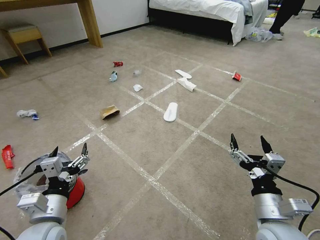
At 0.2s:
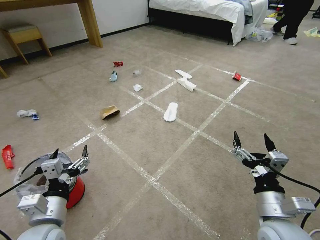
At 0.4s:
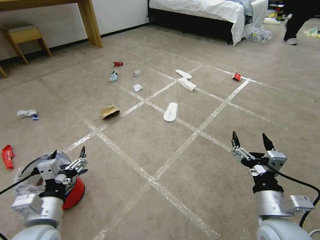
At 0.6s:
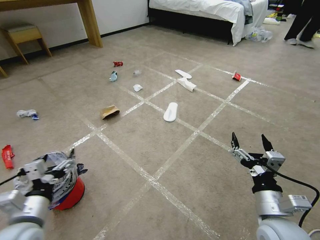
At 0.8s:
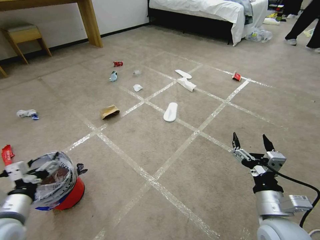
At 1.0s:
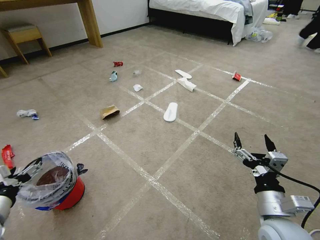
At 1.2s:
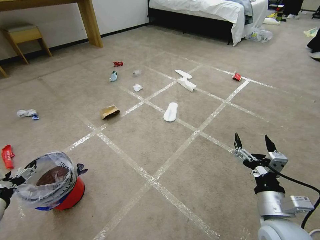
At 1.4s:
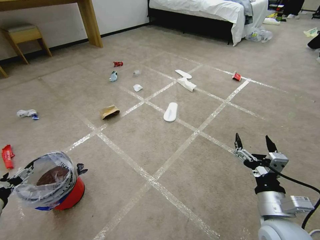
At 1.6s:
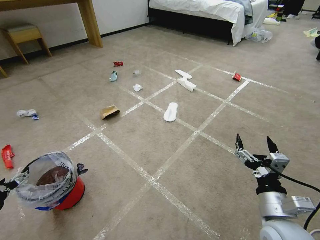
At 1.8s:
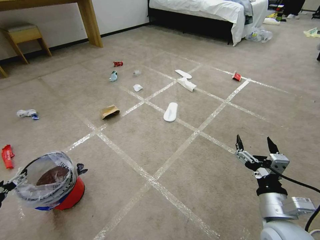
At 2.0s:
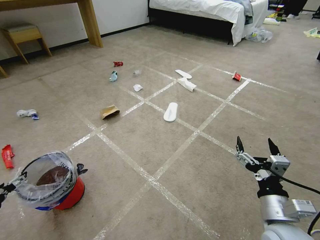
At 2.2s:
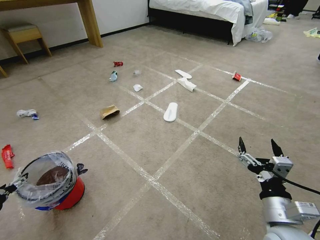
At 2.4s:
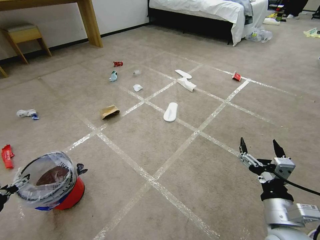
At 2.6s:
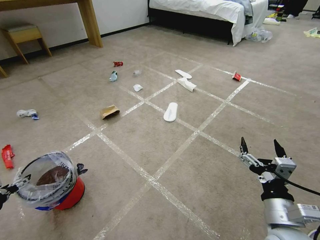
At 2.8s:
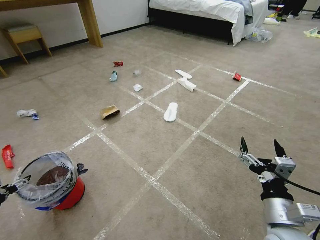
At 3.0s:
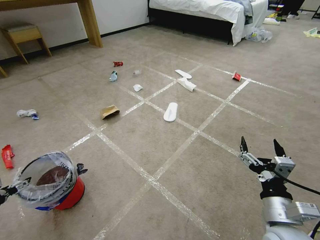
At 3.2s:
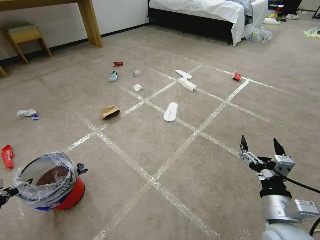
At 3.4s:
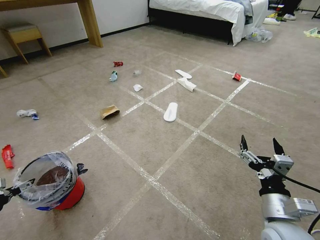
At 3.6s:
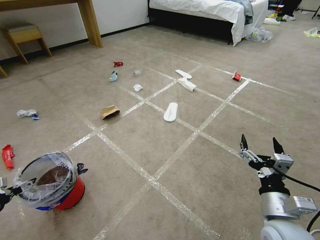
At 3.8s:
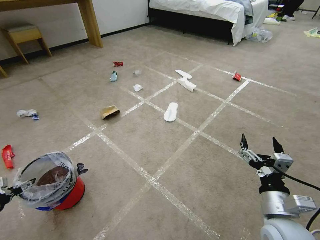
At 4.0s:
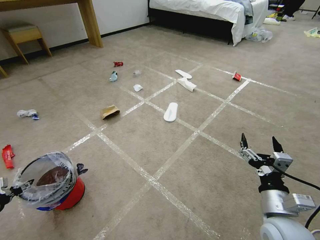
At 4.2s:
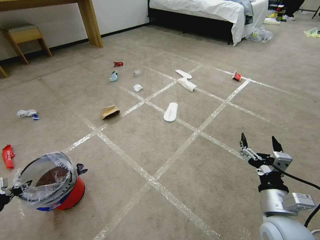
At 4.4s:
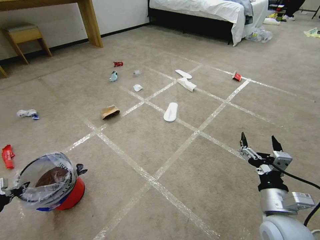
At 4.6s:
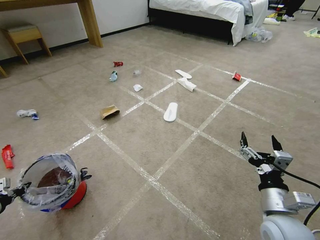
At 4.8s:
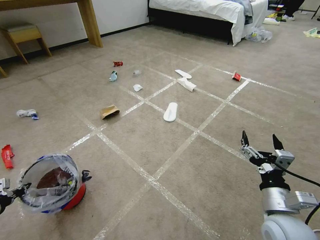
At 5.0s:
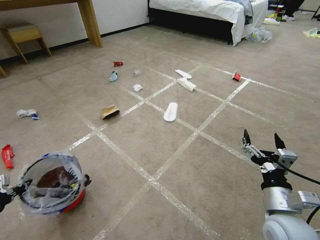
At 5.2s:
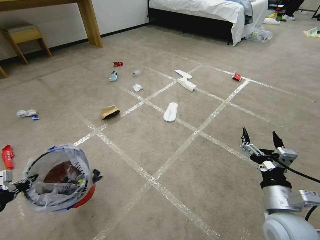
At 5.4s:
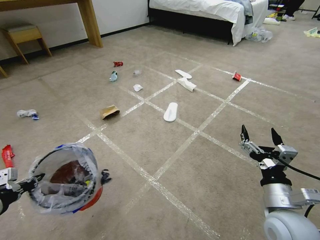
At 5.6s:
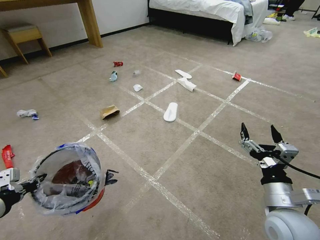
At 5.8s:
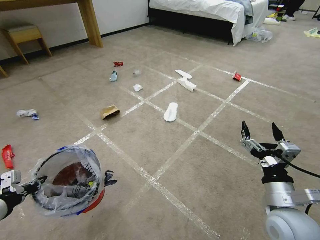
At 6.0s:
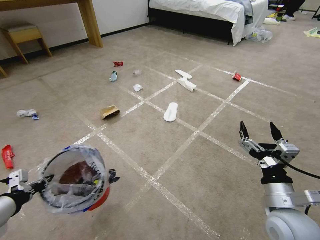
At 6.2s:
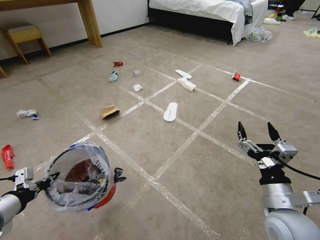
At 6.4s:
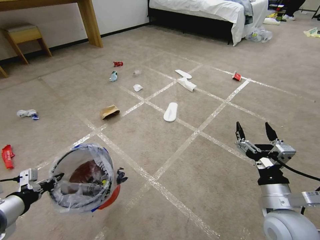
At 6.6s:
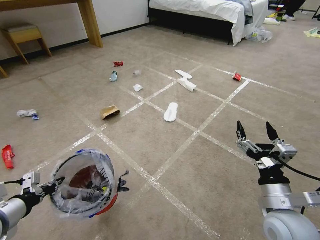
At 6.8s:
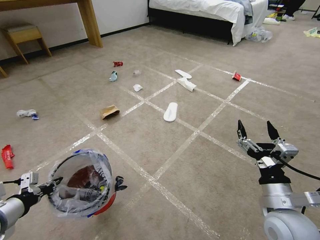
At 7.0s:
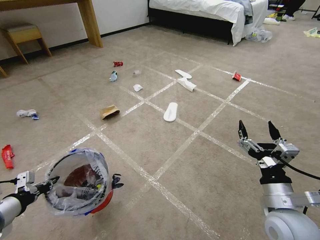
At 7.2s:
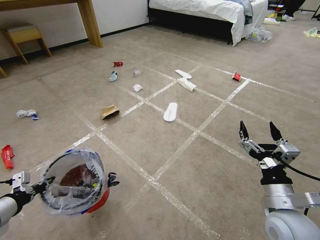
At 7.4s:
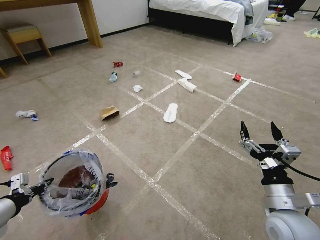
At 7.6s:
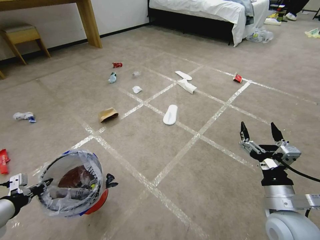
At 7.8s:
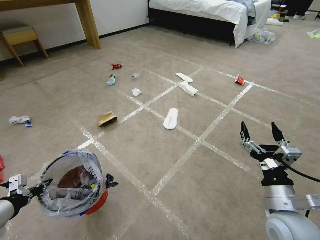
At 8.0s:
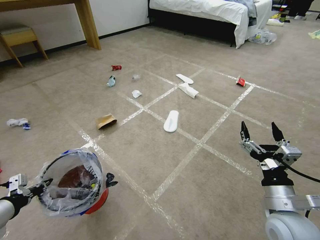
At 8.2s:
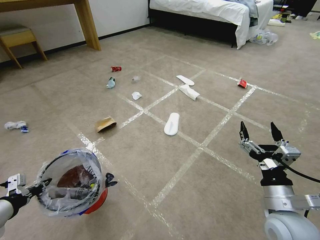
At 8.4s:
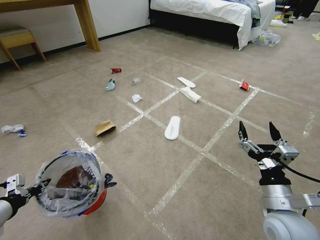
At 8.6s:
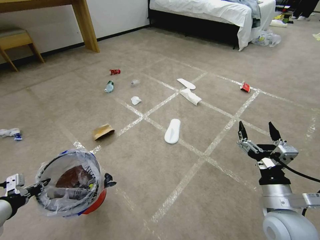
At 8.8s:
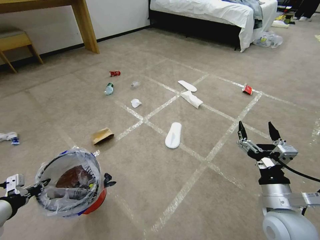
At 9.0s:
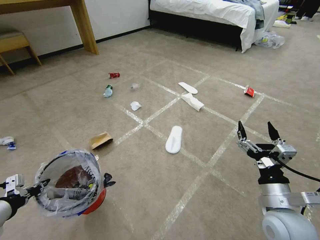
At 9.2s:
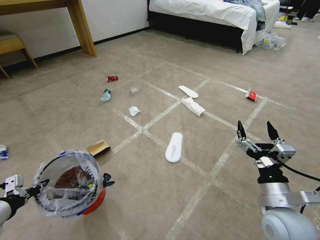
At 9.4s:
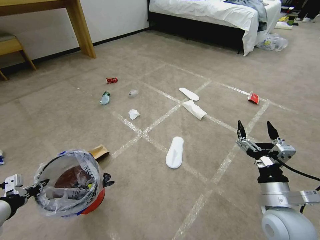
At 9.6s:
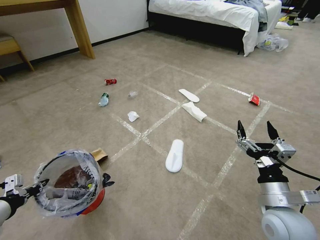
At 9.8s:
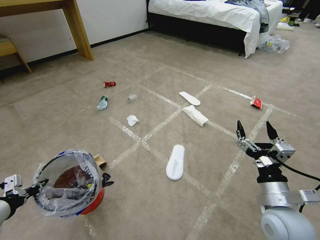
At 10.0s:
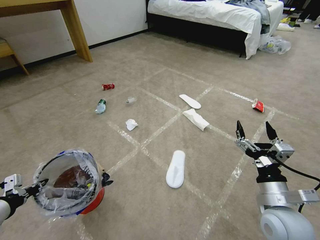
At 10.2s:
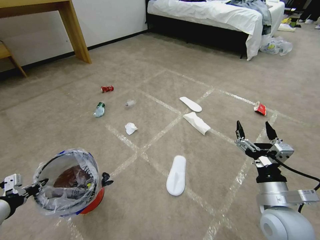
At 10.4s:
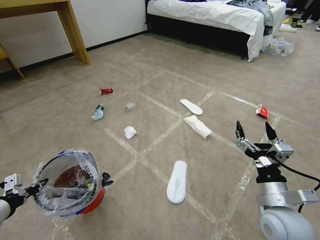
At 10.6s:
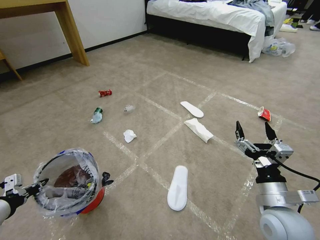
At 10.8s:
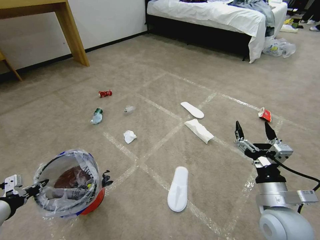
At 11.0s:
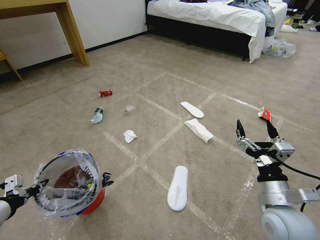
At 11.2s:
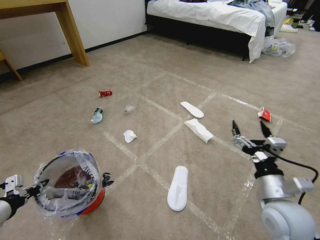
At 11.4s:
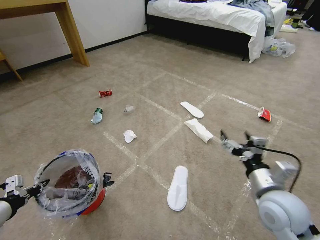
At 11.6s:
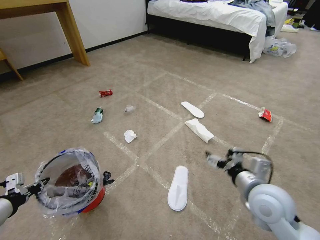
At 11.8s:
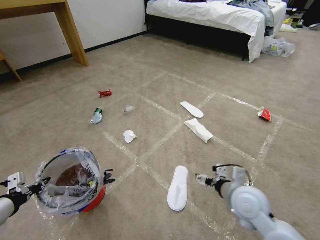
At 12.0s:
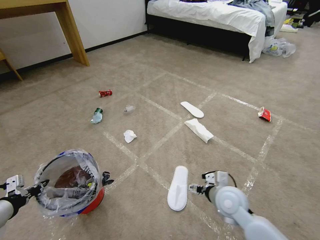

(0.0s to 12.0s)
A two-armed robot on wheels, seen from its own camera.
Task of the whole recording: Pick up the trash bin and place the garbage on the floor into it.
3.0s - 4.4s: The left gripper closes.
4.4s - 6.0s: The left gripper travels to the right and upward by about 20 cm.
6.0s - 7.6s: The grippers stay close to where they were, moving slightly.
10.4s - 12.0s: The right gripper heads forward, to the left and downward, covering approximately 15 cm.

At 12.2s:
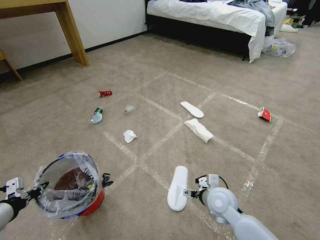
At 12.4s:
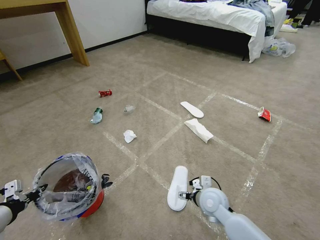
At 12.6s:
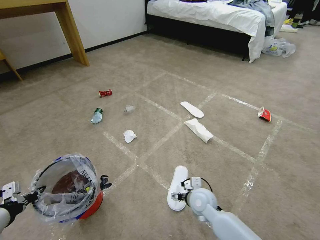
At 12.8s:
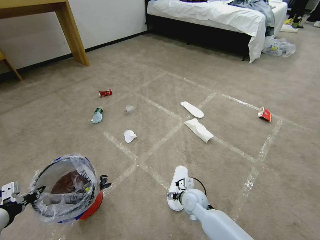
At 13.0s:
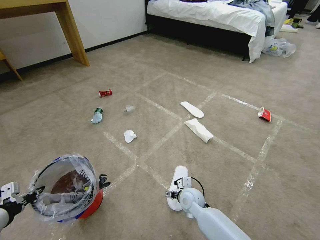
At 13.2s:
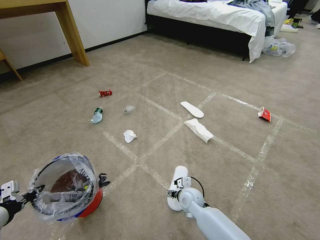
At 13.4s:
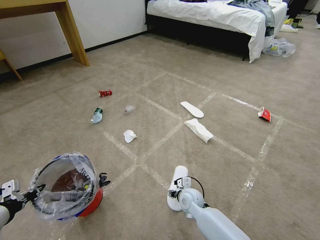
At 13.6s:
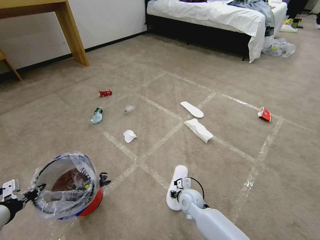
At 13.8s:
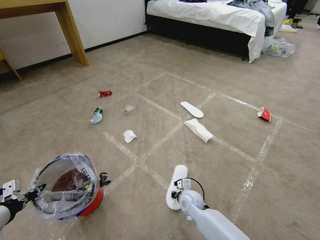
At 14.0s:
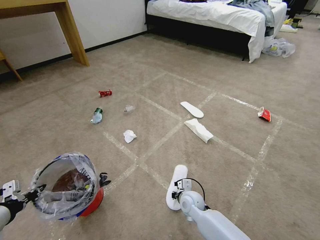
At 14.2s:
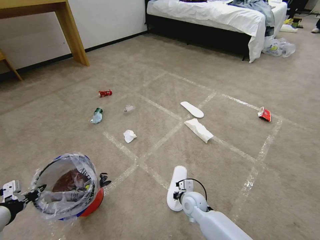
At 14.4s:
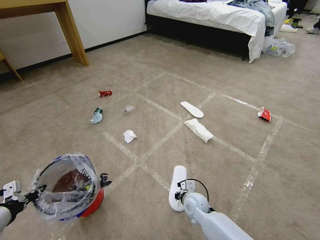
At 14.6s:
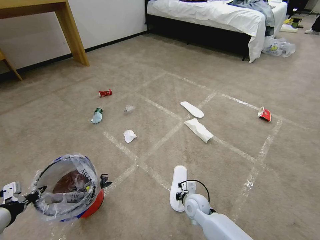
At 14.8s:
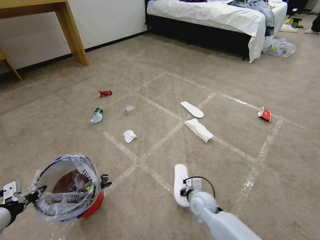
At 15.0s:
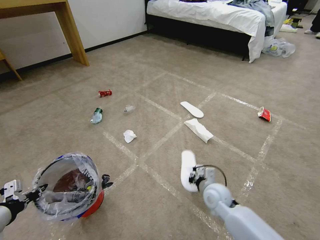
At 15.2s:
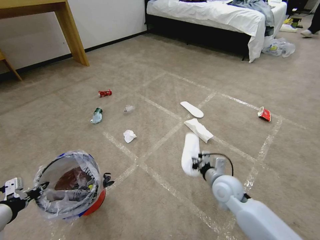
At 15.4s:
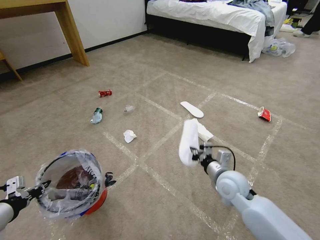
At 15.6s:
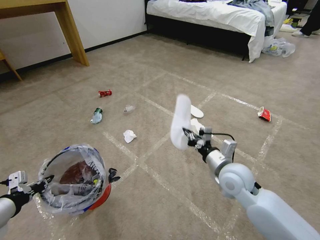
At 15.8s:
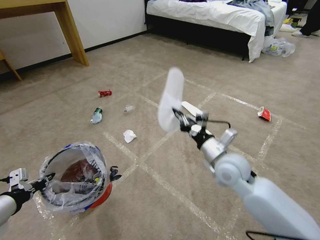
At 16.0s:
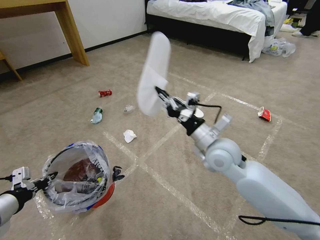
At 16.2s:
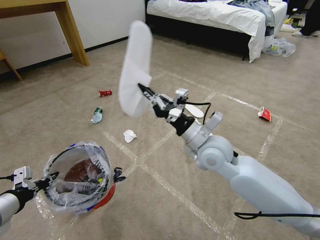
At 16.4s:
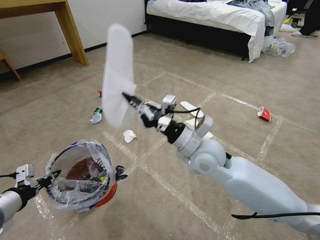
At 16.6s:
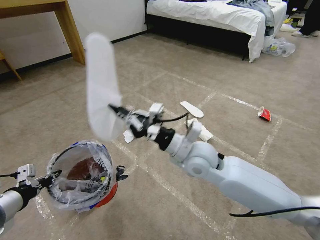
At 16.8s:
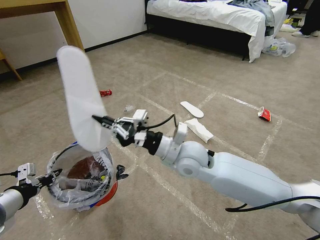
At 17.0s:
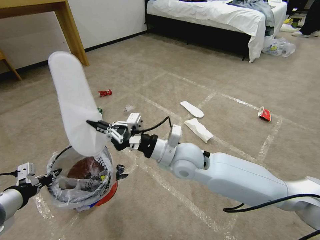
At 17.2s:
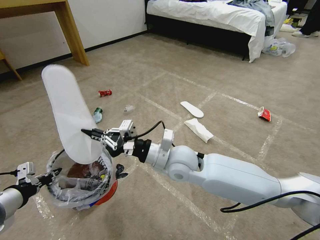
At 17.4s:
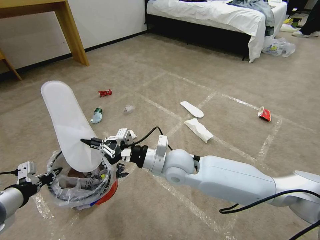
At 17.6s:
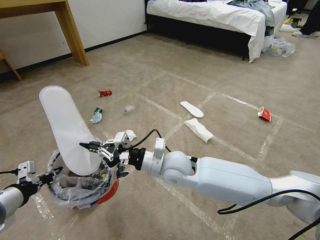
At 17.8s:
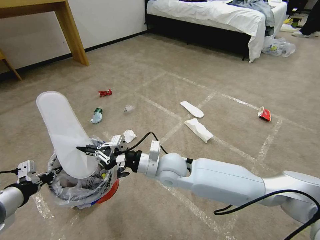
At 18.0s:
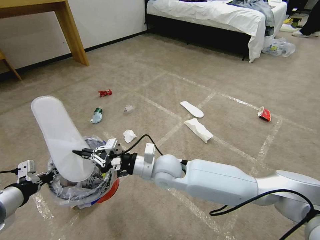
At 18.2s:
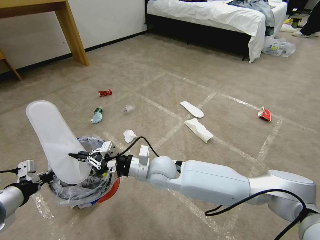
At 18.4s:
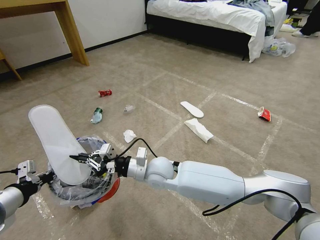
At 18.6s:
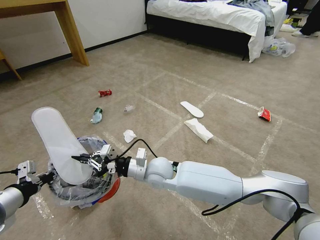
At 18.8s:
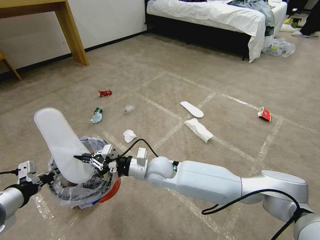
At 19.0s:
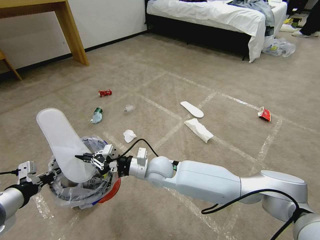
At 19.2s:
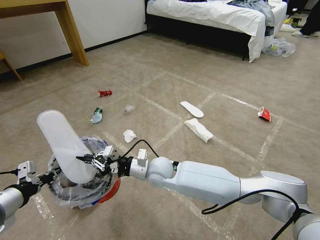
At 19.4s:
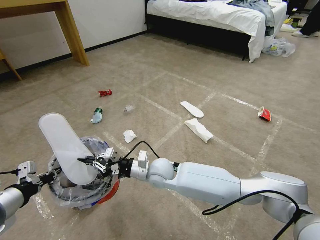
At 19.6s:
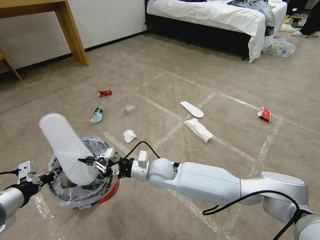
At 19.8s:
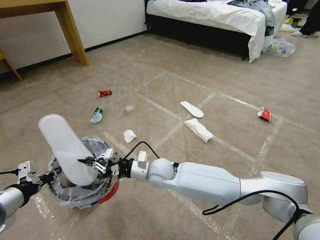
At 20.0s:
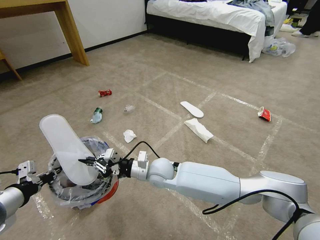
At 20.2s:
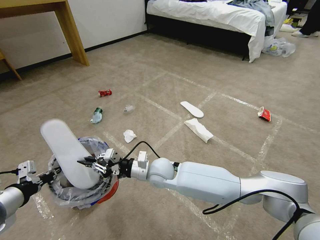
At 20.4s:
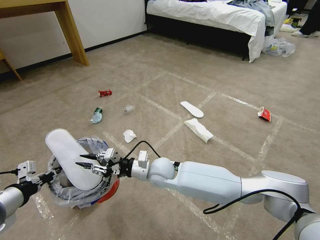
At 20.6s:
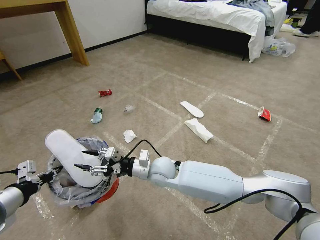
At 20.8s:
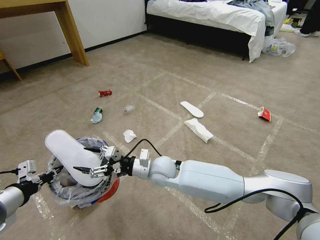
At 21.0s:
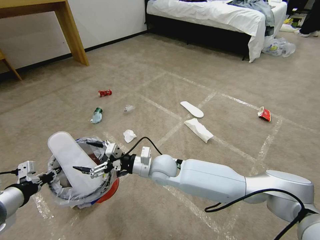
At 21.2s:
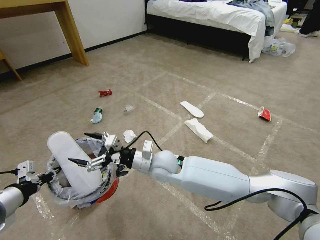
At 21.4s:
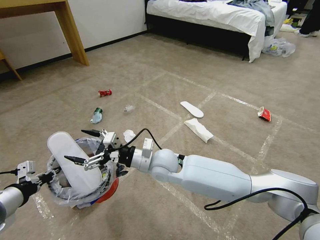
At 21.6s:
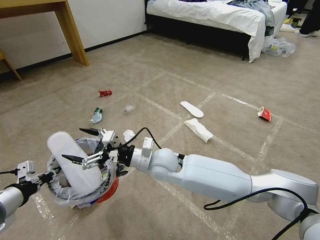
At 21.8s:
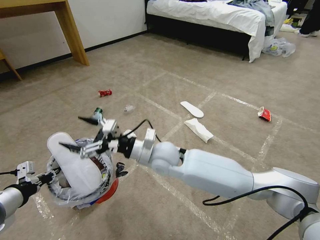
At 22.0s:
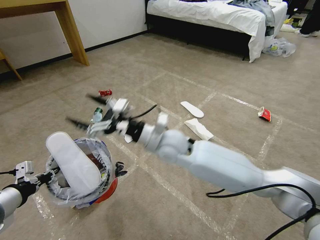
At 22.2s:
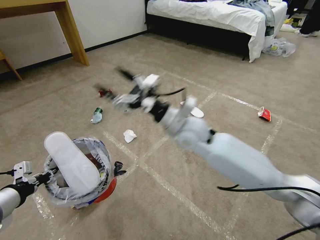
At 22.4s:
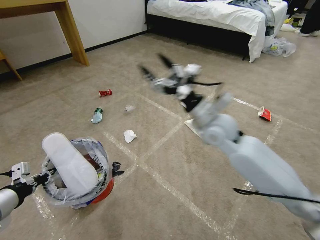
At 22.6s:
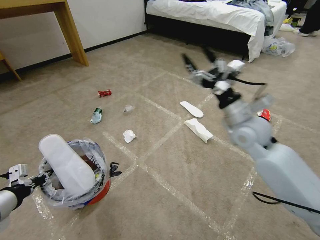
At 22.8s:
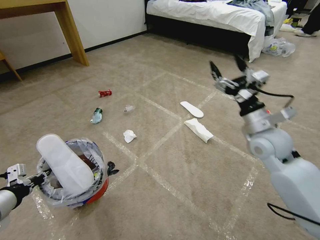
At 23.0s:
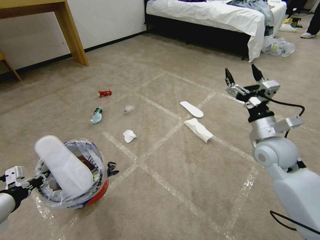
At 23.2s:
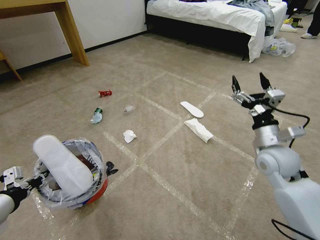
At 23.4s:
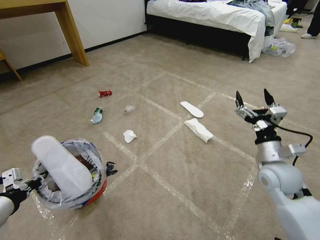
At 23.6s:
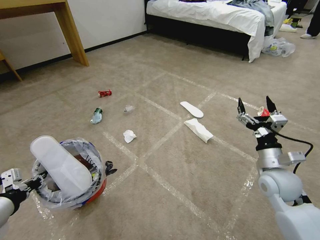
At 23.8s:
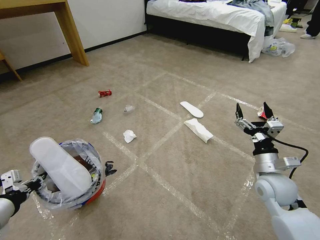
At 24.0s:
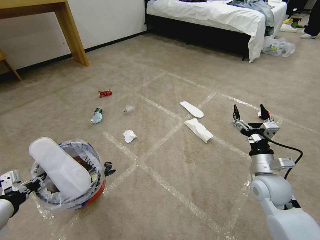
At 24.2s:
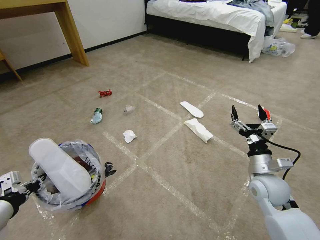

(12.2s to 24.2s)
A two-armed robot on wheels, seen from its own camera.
Task of the whole recording: Pick up the trash bin and place the garbage on the floor into it.
12.2s - 13.8s: The right gripper travels downward and to the left by roughly 15 cm, and closes up.
13.8s - 15.2s: The right gripper is displaced upward and to the right by approximately 15 cm.
15.2s - 16.6s: The left gripper shifts by roughly 5 cm. Meanwhile the right gripper heads upward and to the left, covering roughly 20 cm.
16.6s - 18.2s: The right gripper is displaced to the left and downward by roughly 15 cm.
18.2s - 19.8s: The right gripper ends up some 5 cm from where it was.
19.8s - 21.2s: The right gripper moves upward, approximately 5 cm, and opens up.
21.2s - 22.6s: The right gripper is displaced to the right and upward by roughly 30 cm.
22.6s - 24.2s: The right gripper travels downward, backward and to the right by about 20 cm.
